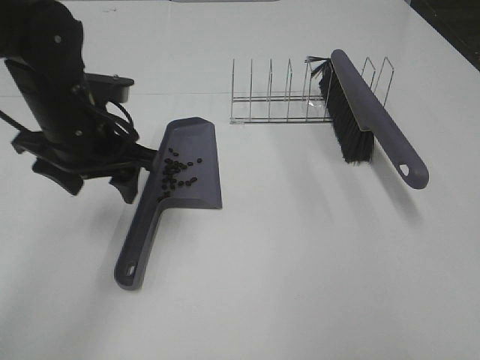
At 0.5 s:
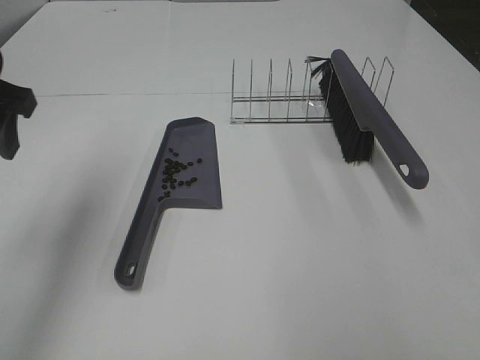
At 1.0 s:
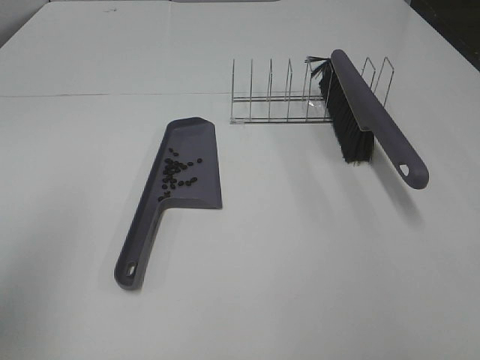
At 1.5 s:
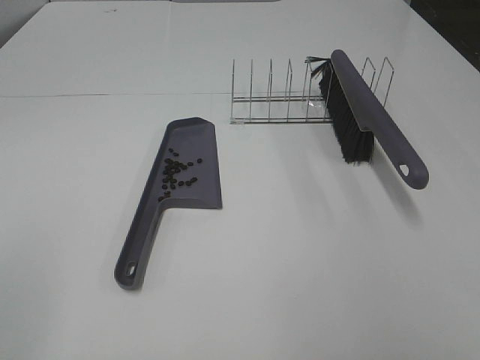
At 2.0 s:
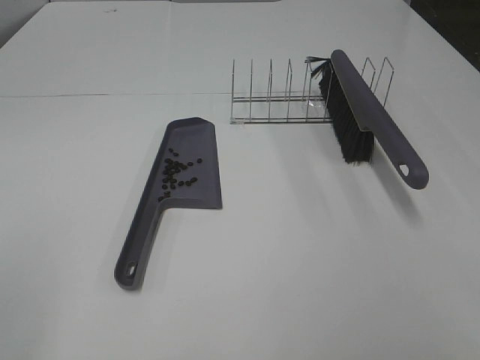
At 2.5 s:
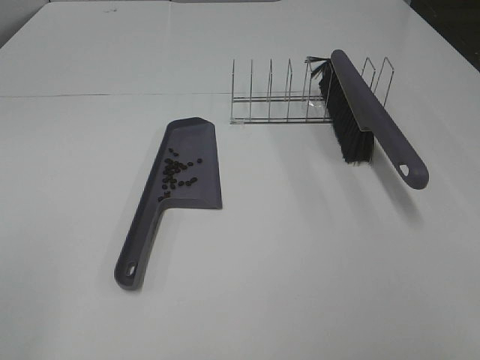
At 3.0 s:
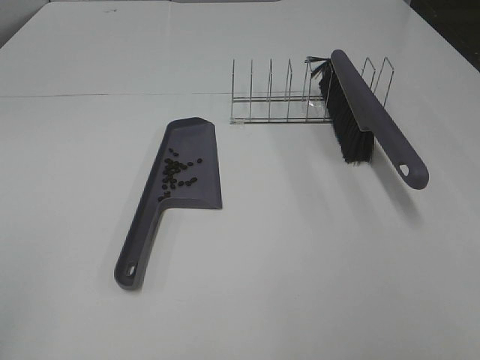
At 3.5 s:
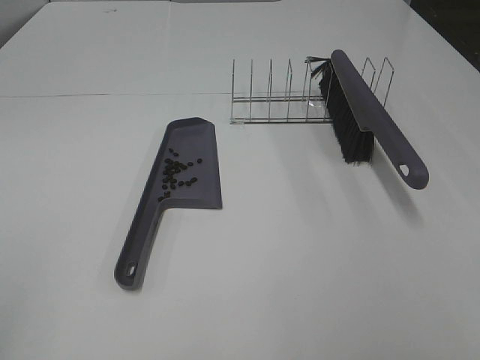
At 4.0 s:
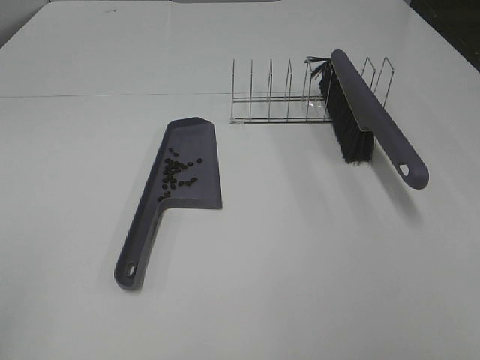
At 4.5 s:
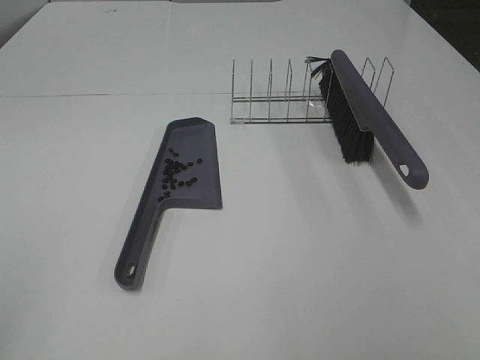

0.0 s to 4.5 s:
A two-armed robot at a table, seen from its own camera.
Task of the whole recording: Sweep Coffee Bean.
0.0 to 2.0 s: The right gripper travels backward by approximately 10 cm; the left gripper travels backward and to the left by approximately 35 cm.

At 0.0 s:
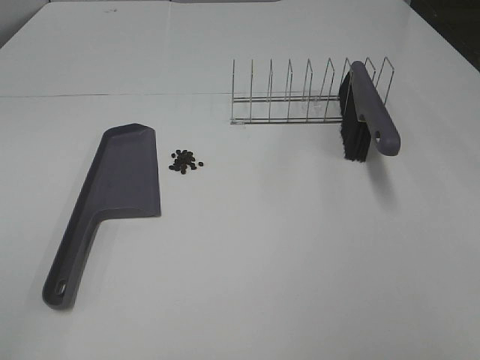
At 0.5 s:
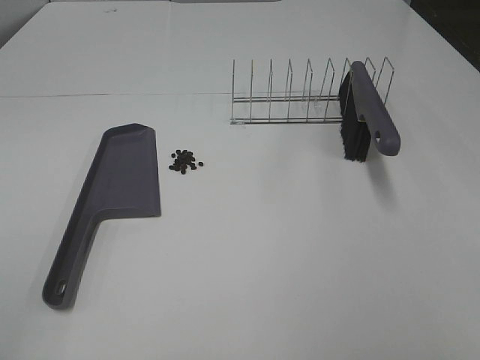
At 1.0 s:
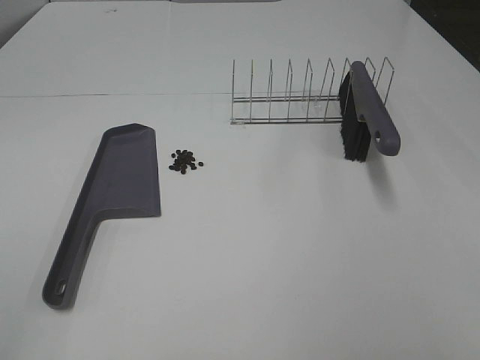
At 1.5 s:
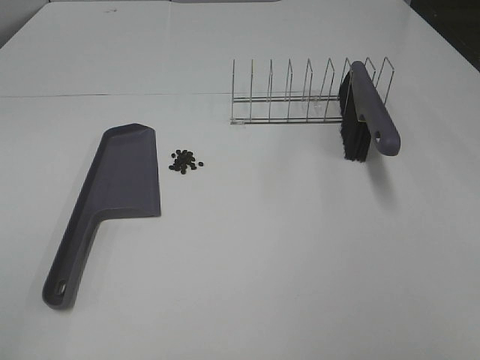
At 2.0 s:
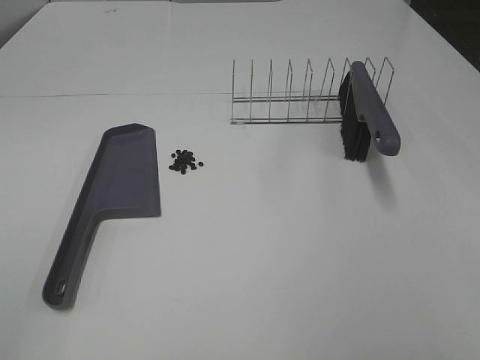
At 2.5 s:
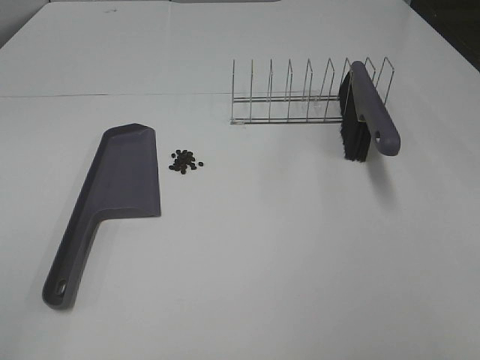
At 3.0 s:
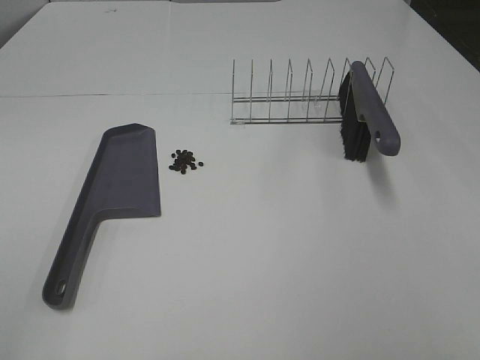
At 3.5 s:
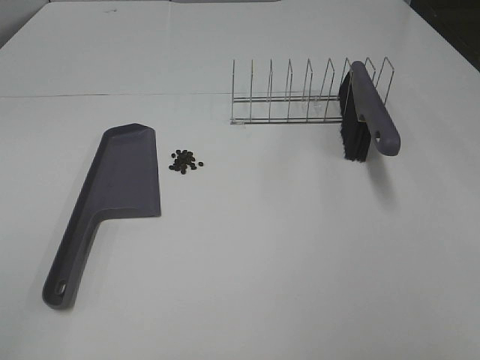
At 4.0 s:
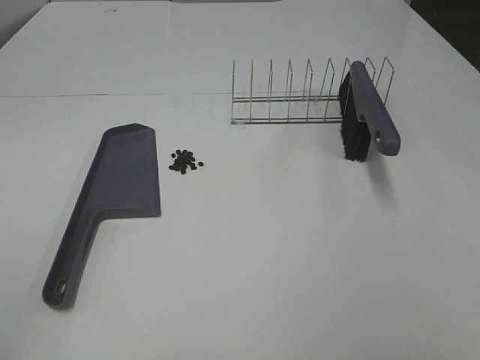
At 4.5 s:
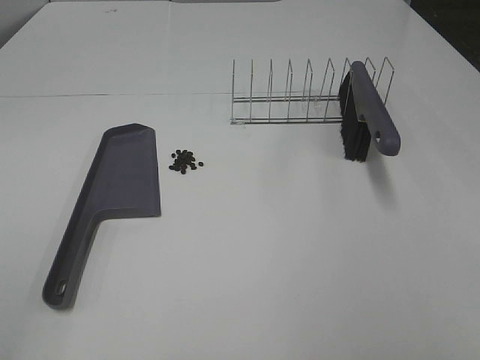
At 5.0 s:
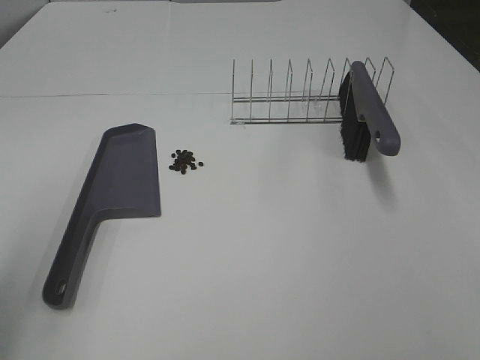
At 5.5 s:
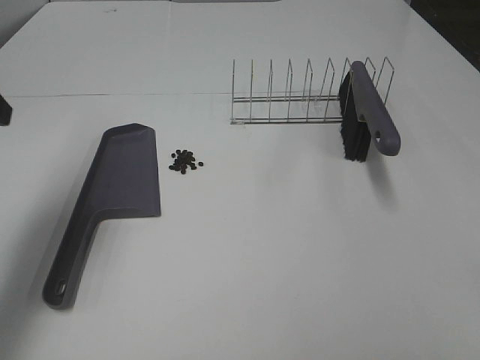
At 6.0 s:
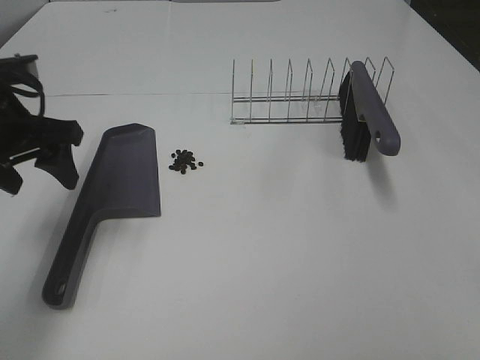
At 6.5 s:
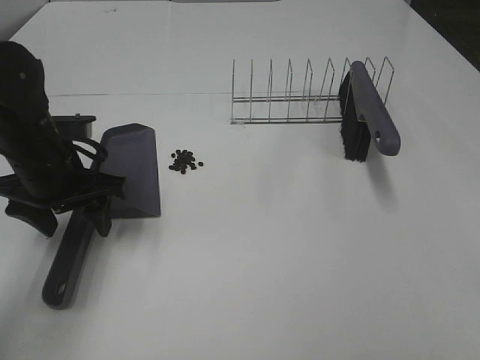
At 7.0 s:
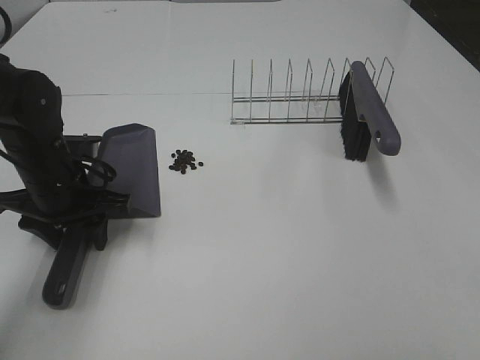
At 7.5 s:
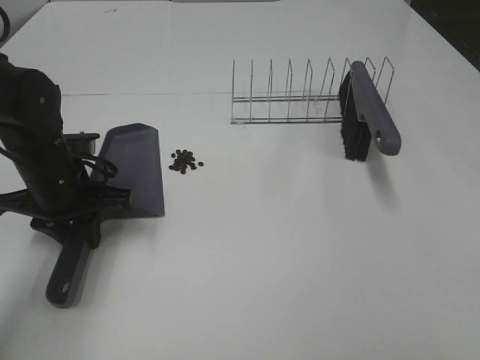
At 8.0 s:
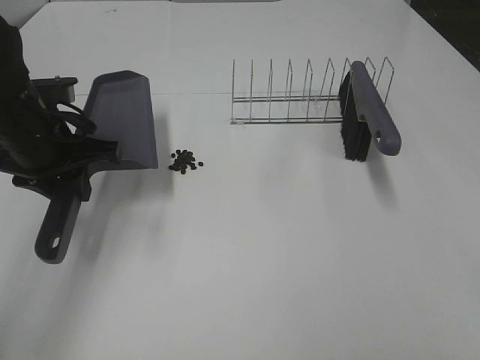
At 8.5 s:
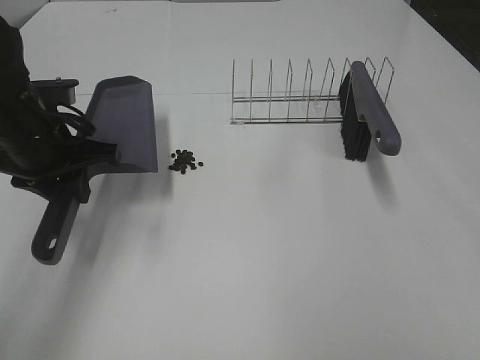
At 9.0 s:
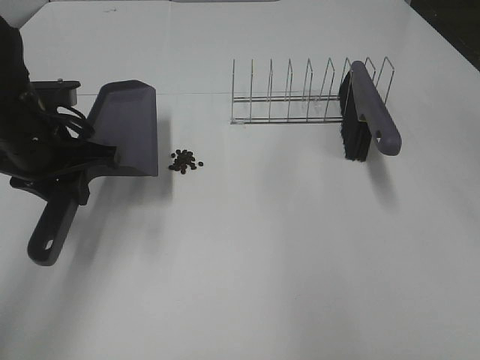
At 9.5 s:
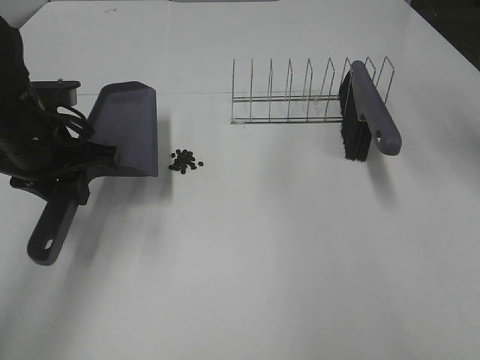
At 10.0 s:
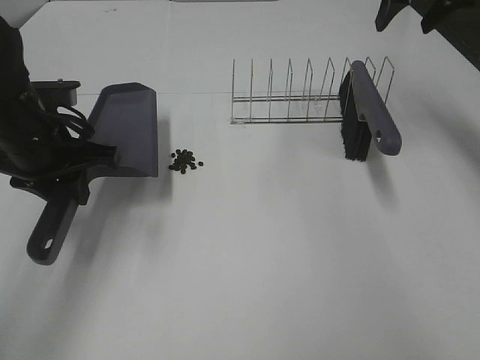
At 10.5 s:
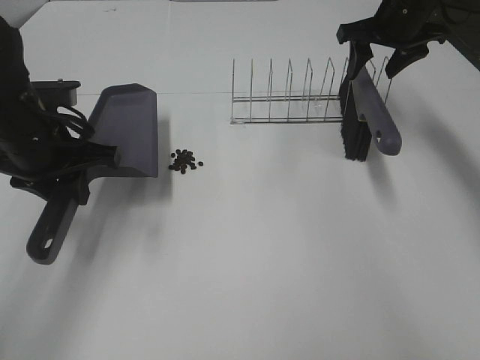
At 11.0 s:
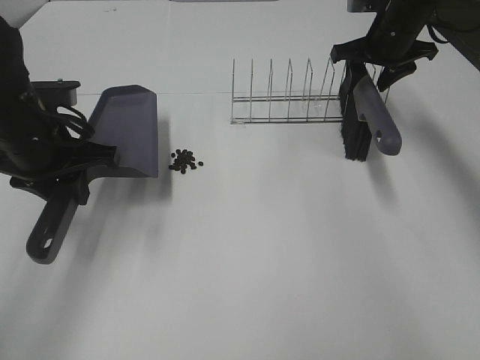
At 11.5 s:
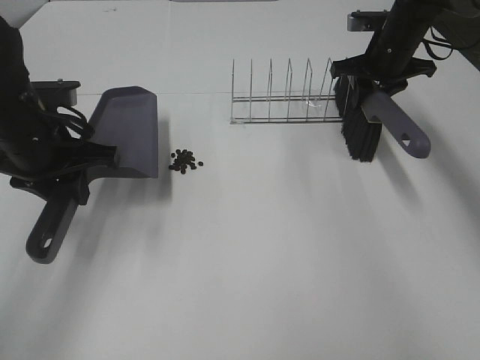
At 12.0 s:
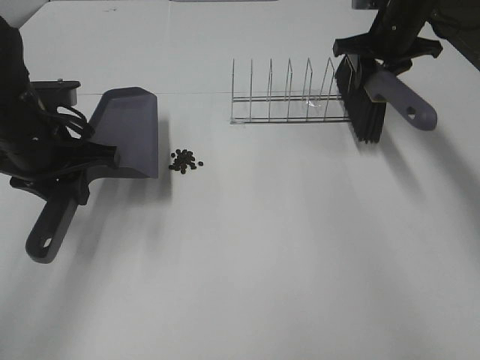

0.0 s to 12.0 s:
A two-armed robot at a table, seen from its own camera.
Task of the whole recording: Sweep Coffee Bean.
Step, 0.0 to 7.0 s: Left hand: grab the dustpan.
Step, 8.0 to 11.5 s: Right hand:grab the broom.
0.0 to 4.0 s: The two grippers keep their place.
4.0 to 6.0 s: The left gripper heads forward, covering about 30 cm.
6.0 to 8.0 s: The left gripper moves roughly 10 cm downward and comes back, and closes.
8.0 to 10.0 s: The right gripper is displaced forward by about 50 cm.
10.0 to 12.0 s: The right gripper shifts approximately 10 cm downward, and closes.

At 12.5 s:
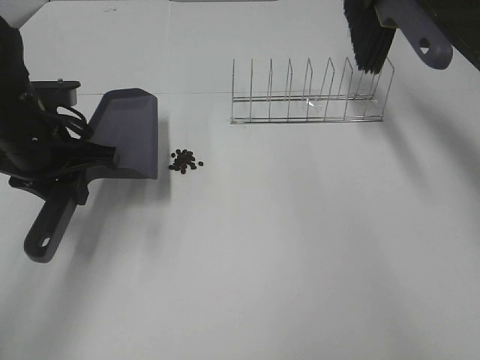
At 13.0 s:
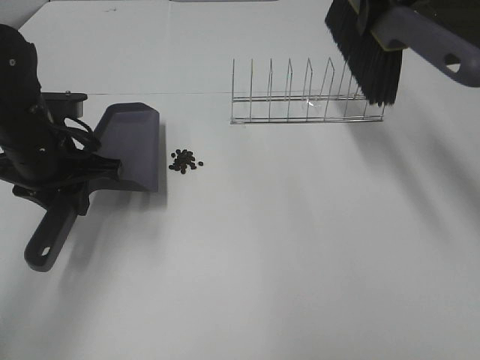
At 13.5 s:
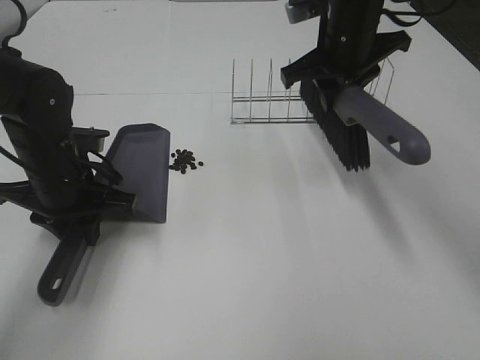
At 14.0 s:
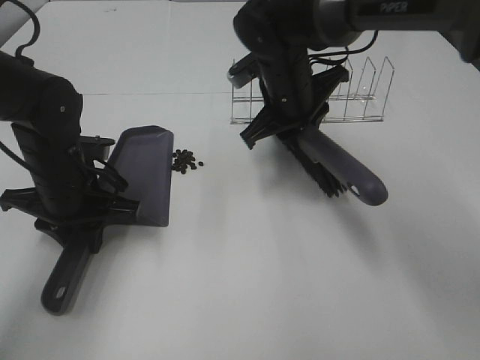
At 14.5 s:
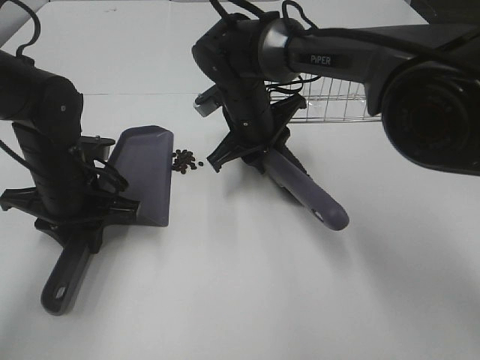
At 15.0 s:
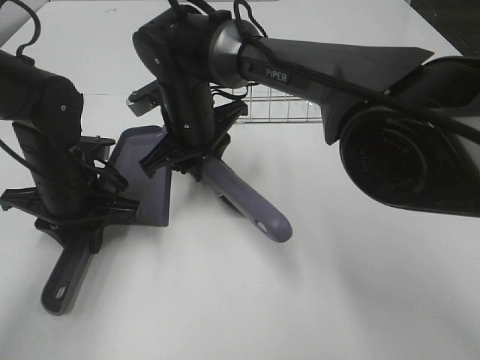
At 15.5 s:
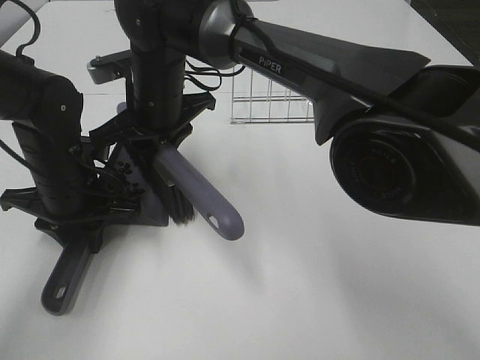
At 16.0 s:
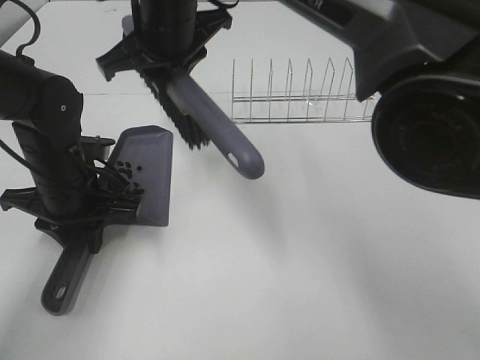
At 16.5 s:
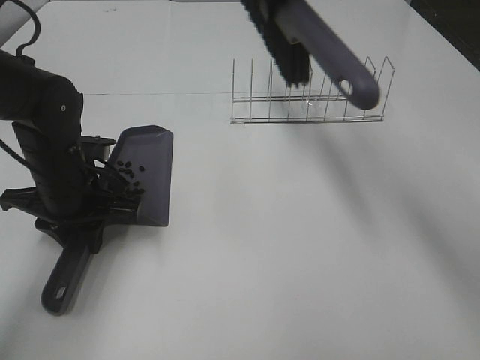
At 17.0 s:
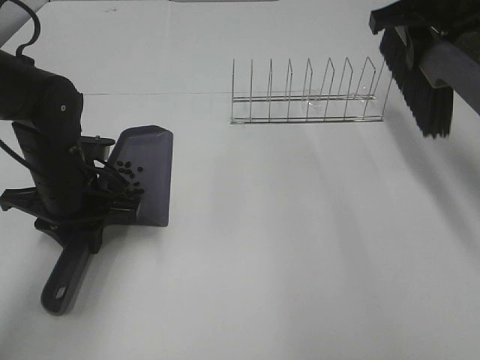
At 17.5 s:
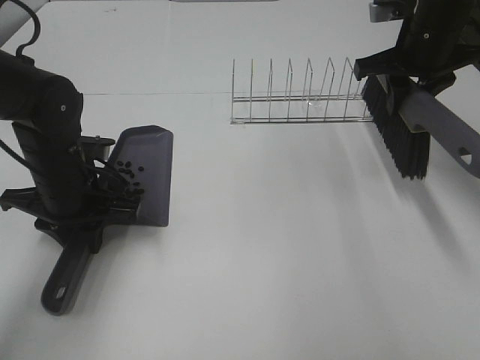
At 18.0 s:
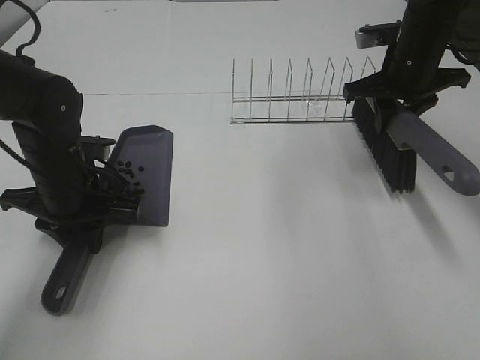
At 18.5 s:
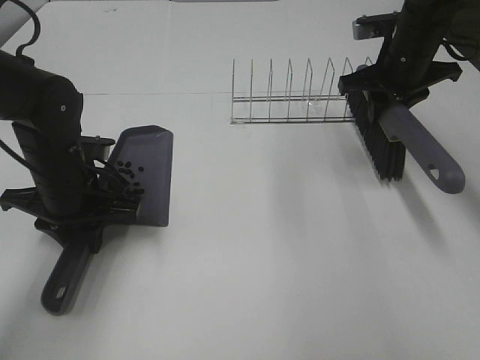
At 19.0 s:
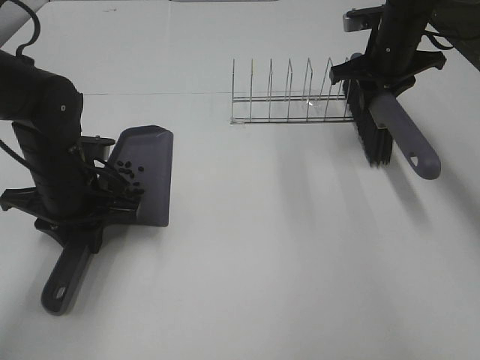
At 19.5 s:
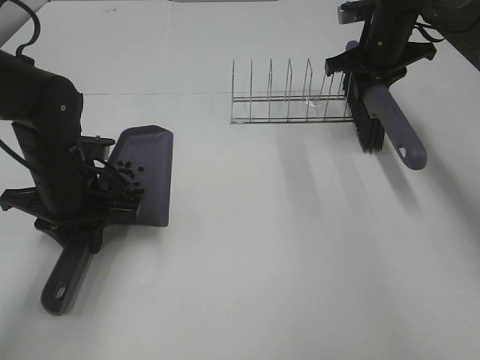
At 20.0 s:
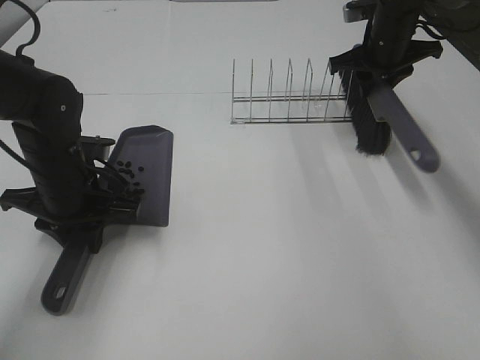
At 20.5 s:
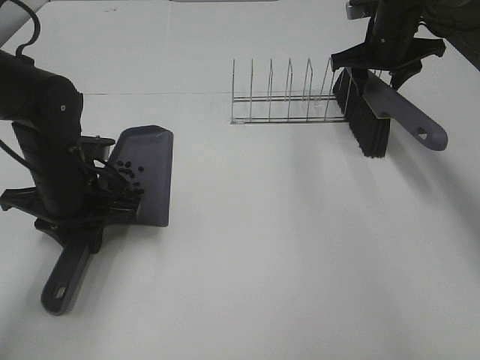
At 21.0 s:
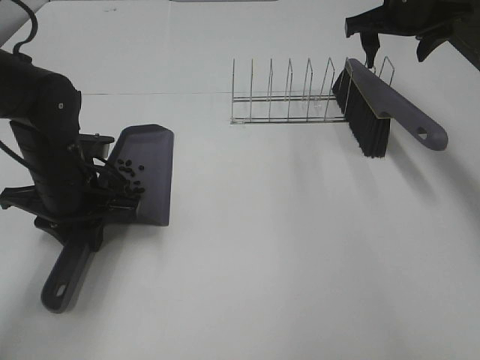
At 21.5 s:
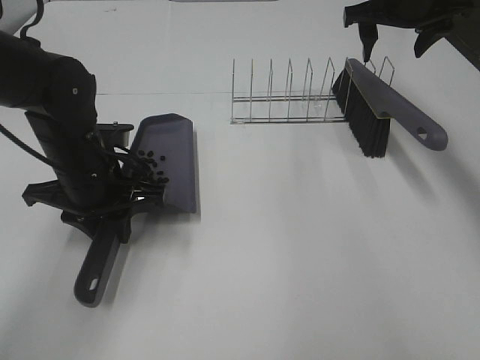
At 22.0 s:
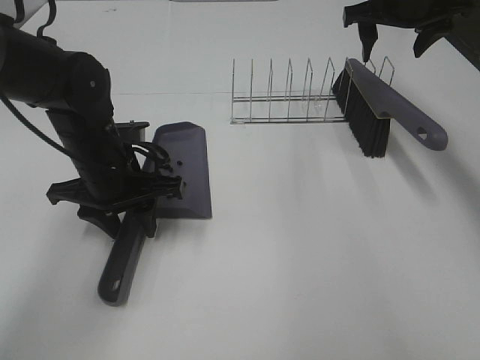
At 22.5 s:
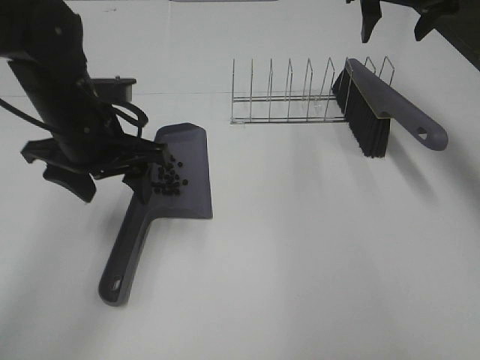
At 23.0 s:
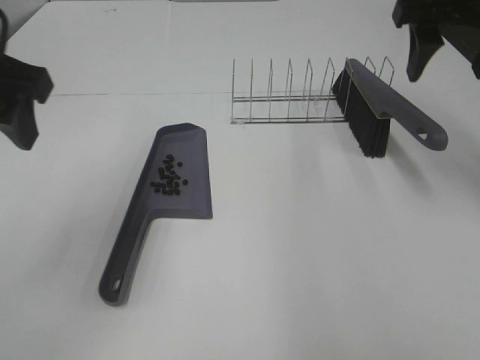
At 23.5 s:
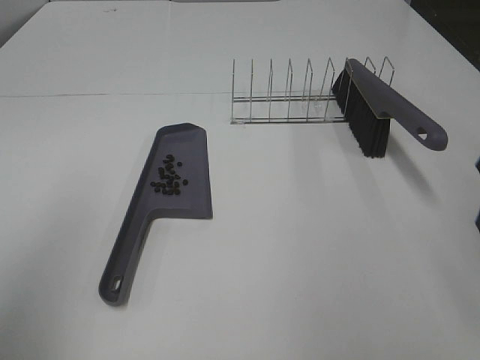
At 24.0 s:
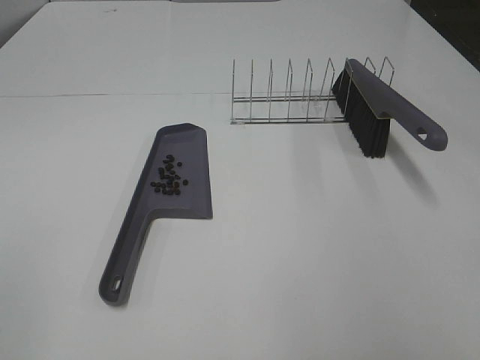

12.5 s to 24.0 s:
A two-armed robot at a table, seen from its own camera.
Task of the whole recording: Sweep Coffee Bean.
Step, 12.5 to 15.5 s: Right hand:sweep the coffee beans into the dustpan.
Step, 16.0 to 20.5 s: Right hand:place the broom on the rack.
Step, 21.0 to 22.0 s: Left hand:place the dustpan on the table.
12.5 to 14.5 s: The right gripper is displaced to the left and downward by some 30 cm, while the left gripper moves downward, approximately 5 cm.
14.5 to 16.5 s: The right gripper travels upward by about 20 cm.
16.5 to 18.5 s: The right gripper moves to the right and downward, roughly 20 cm.
18.5 to 20.0 s: The right gripper is displaced forward by roughly 5 cm.
20.0 to 22.0 s: The right gripper heads upward, covering about 10 cm, and opens its fingers. The left gripper opens.
22.0 to 24.0 s: The left gripper shifts approximately 40 cm backward, to the left and upward, and opens up. The right gripper is displaced backward by about 40 cm.
